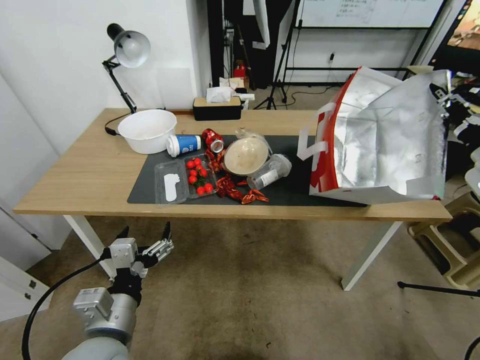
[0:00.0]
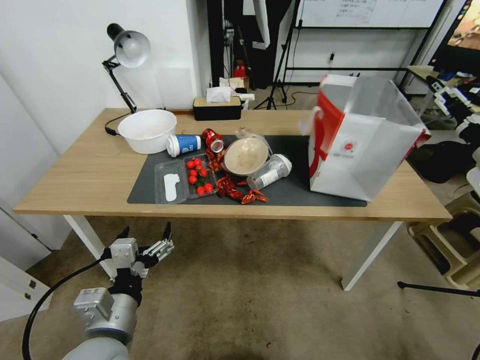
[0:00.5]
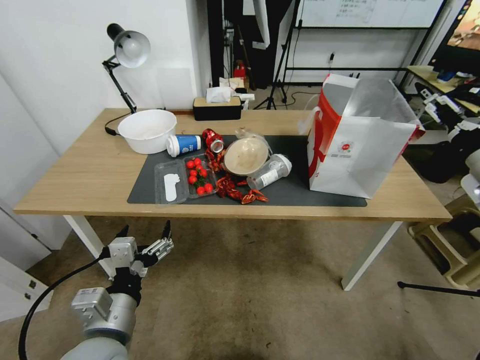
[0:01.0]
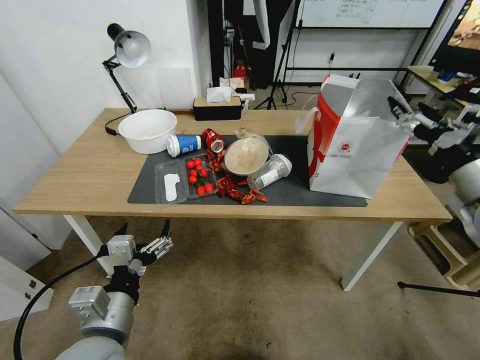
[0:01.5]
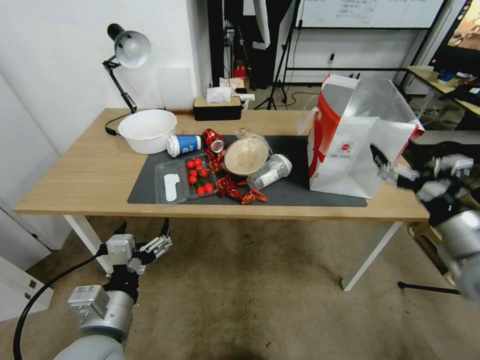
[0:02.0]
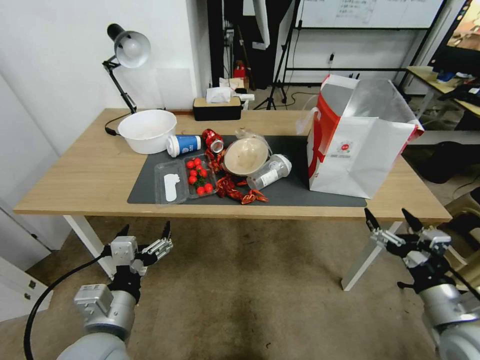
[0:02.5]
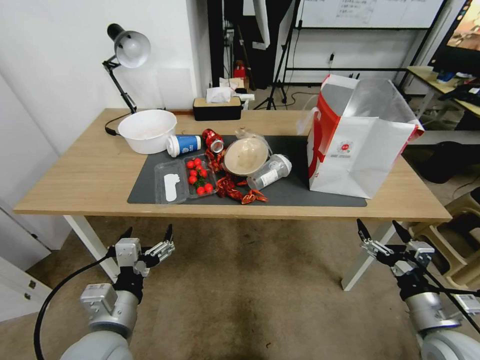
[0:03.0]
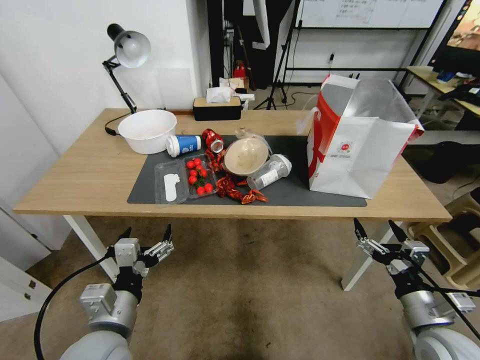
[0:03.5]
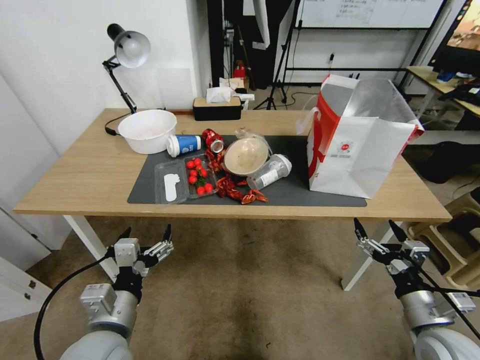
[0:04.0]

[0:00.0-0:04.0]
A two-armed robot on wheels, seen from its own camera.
Task of the whole recording: Pick up the food delivery bag from the floor and place it on the table.
0:00.0 to 0:02.0: The right gripper travels backward, downward and to the left by about 15 cm, and opens up.
0:02.0 to 0:04.0: The right gripper travels downward and backward by approximately 20 cm.

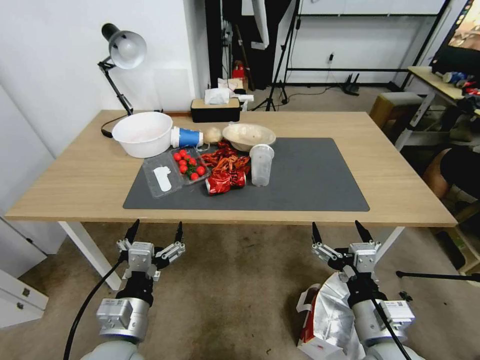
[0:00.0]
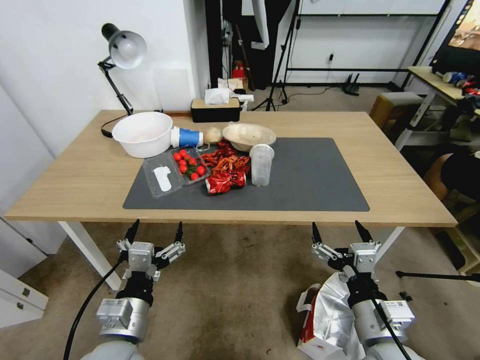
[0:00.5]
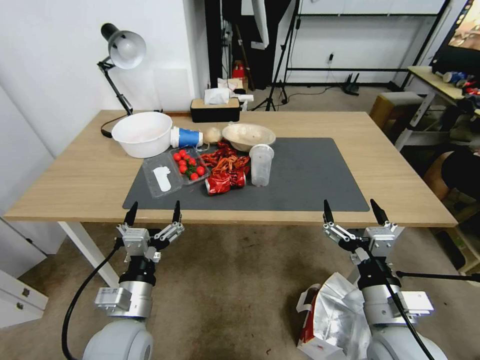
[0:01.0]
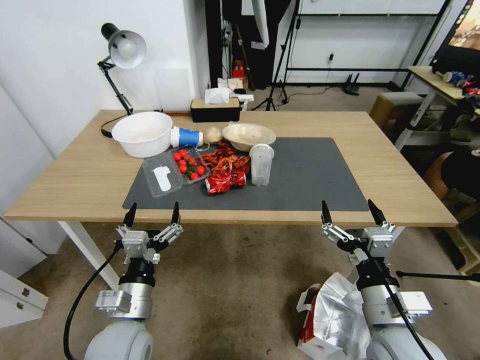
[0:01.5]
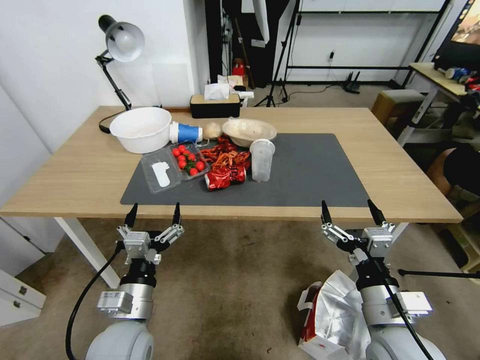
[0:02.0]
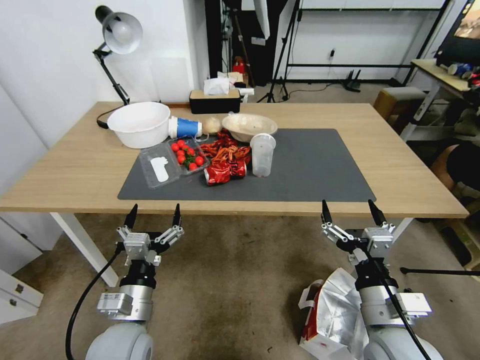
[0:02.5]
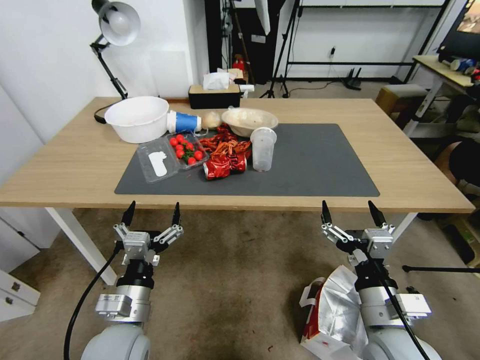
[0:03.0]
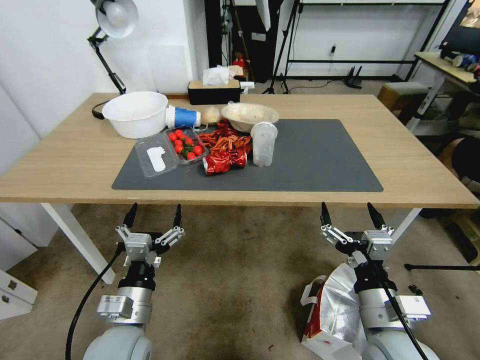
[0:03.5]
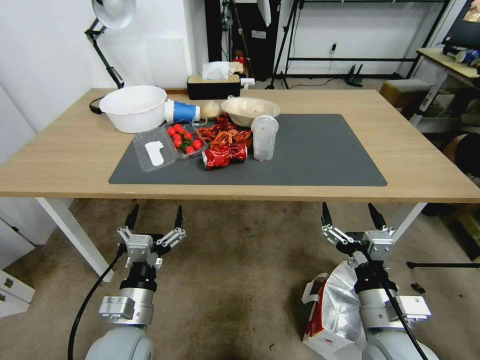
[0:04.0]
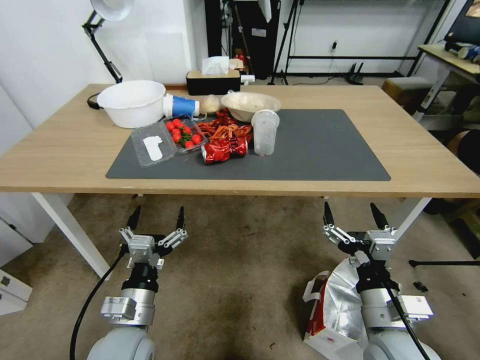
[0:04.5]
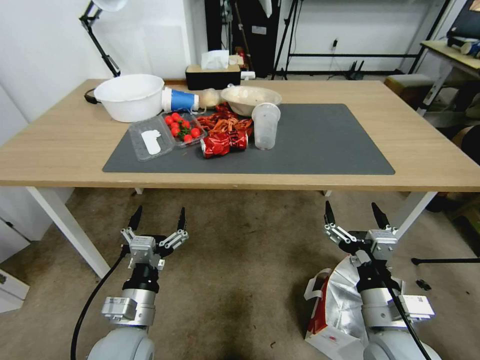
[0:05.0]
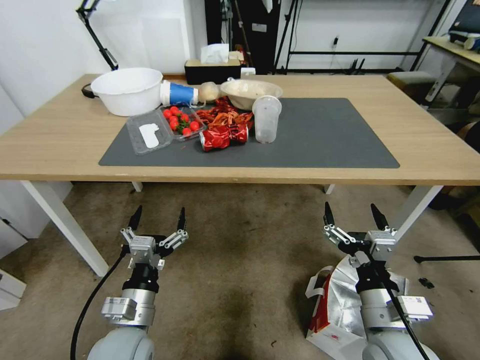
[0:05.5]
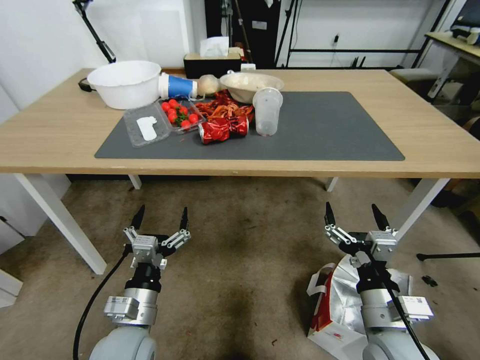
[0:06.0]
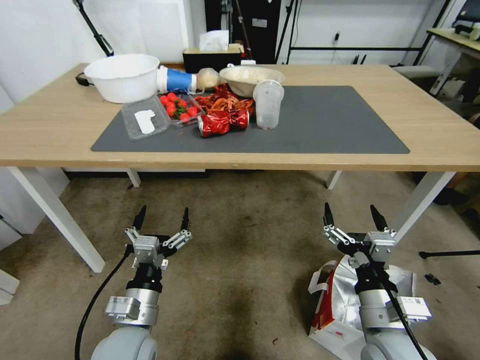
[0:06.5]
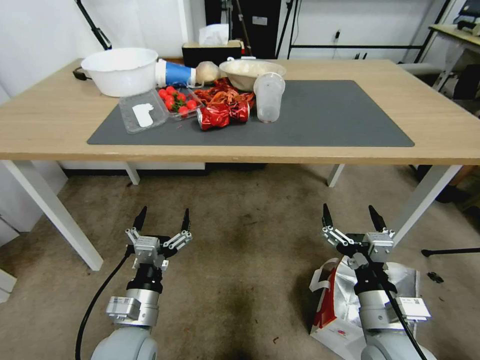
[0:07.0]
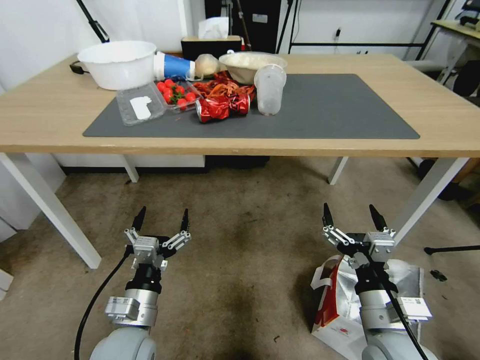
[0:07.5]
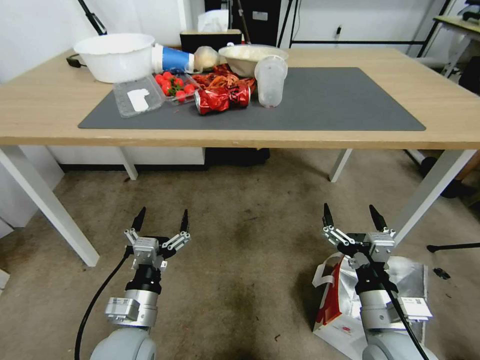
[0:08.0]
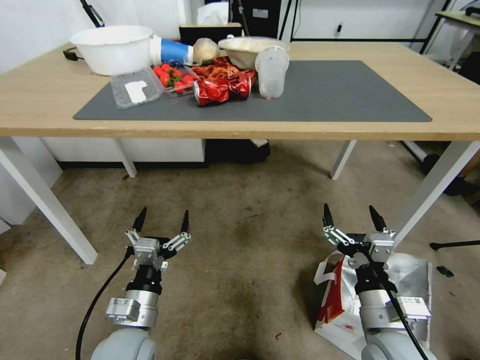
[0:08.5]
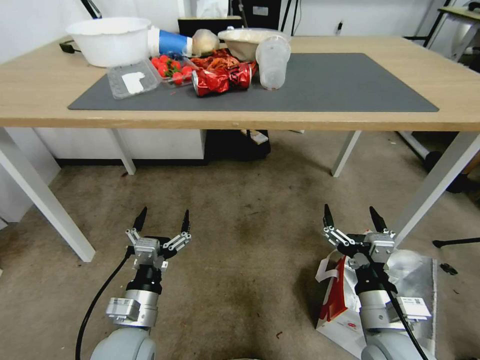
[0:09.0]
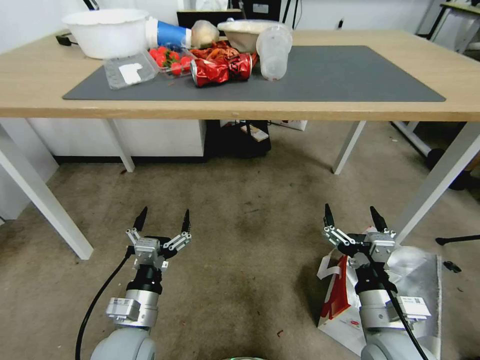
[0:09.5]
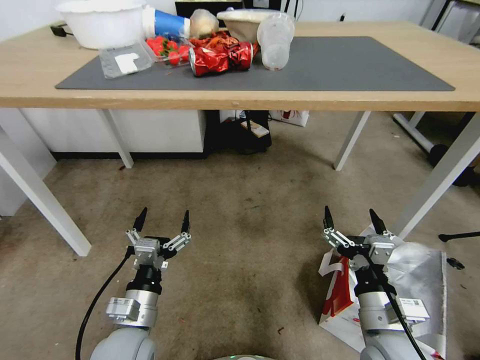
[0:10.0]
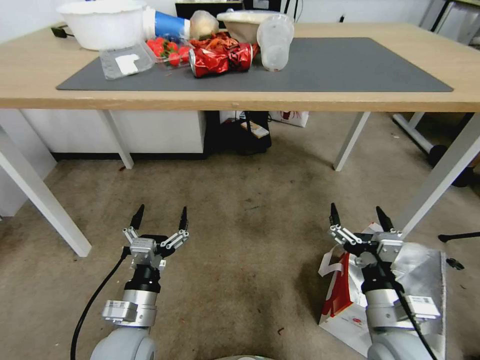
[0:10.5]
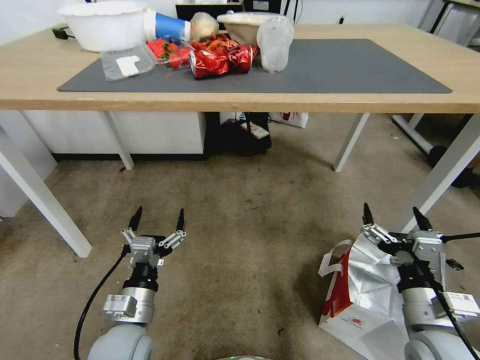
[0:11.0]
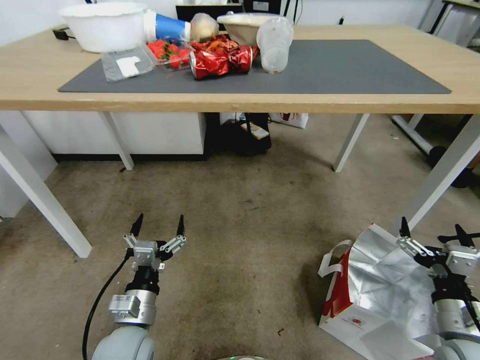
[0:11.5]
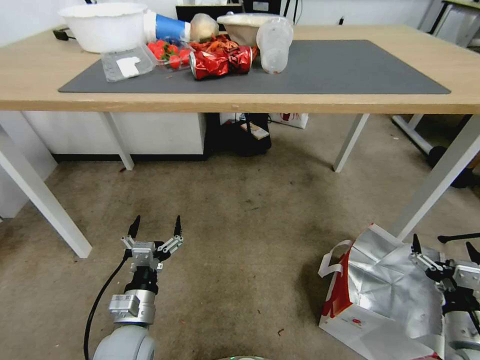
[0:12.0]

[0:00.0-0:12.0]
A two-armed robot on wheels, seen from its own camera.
Task of the whole recording: Pick up the food delivery bag from the floor and place it on the table.
0:10.0 to 0:12.0: The right gripper goes about 20 cm to the right.

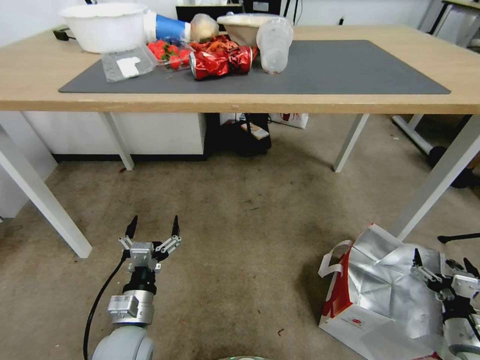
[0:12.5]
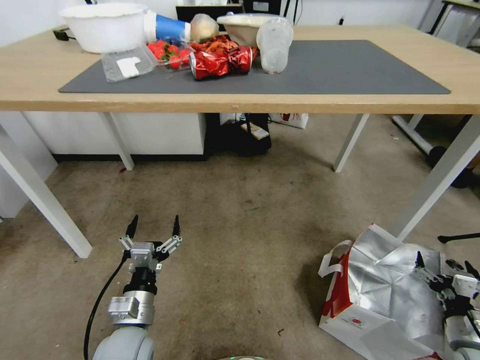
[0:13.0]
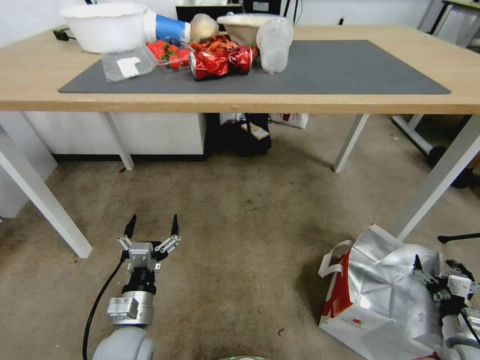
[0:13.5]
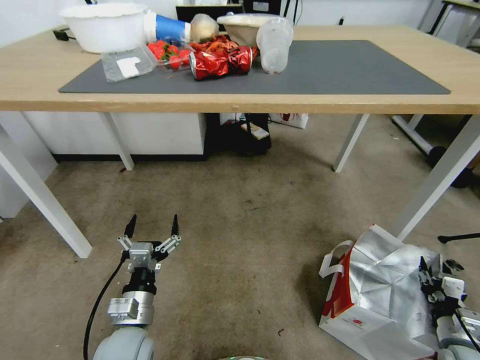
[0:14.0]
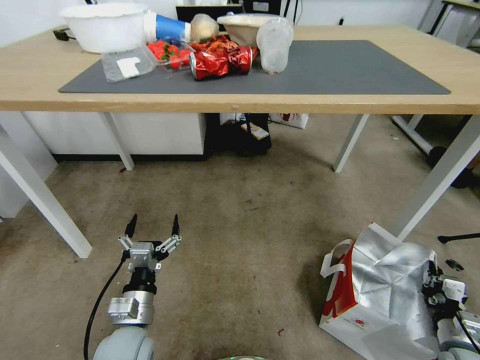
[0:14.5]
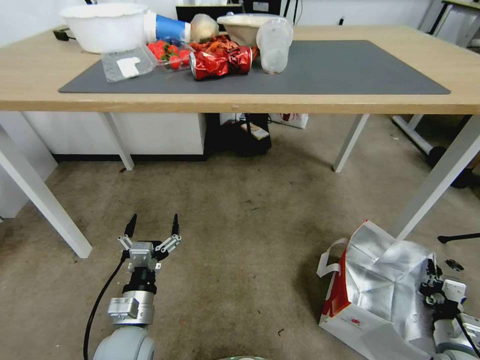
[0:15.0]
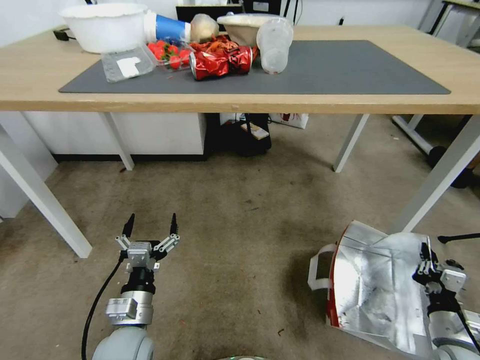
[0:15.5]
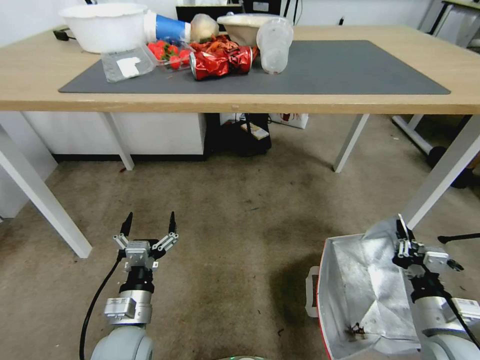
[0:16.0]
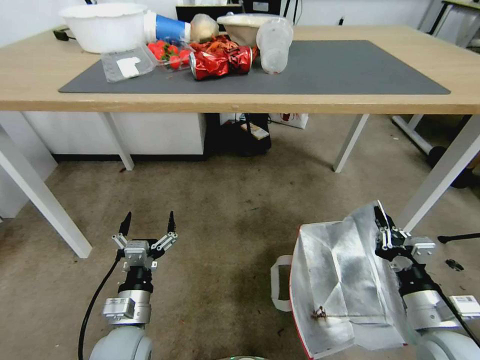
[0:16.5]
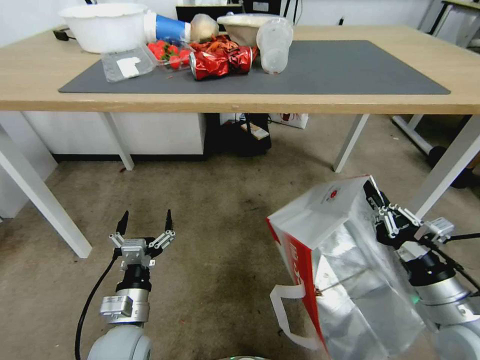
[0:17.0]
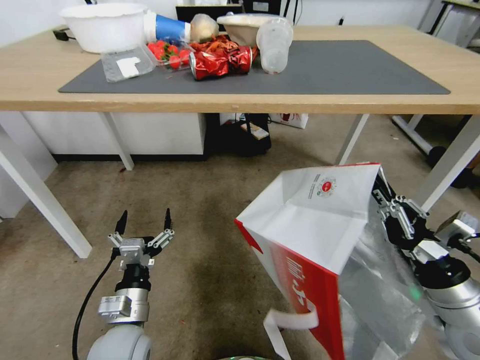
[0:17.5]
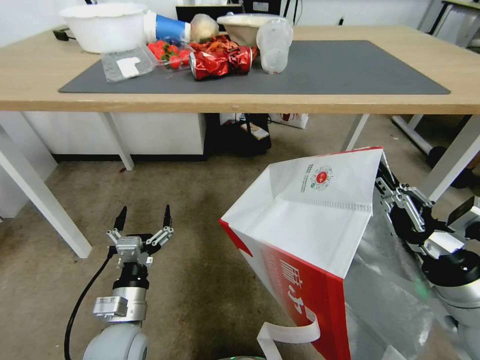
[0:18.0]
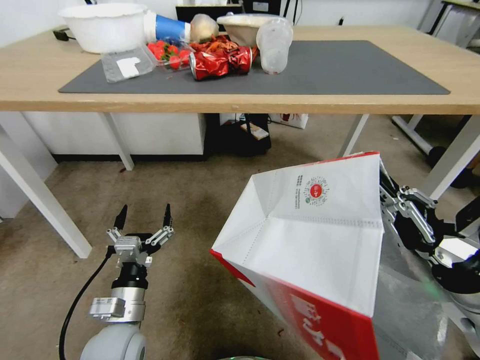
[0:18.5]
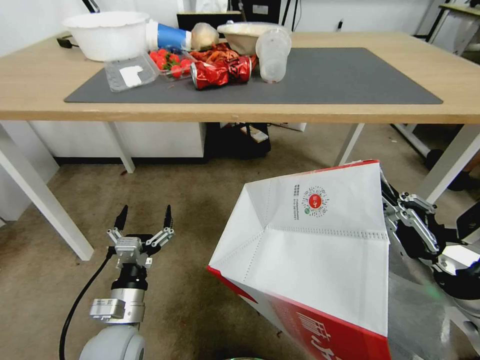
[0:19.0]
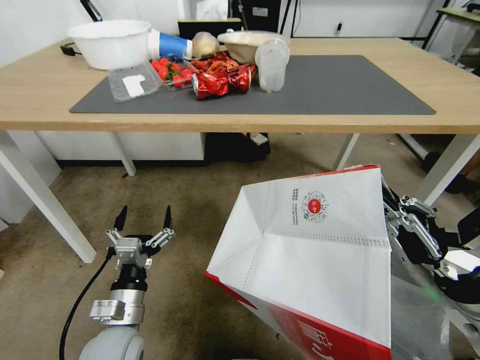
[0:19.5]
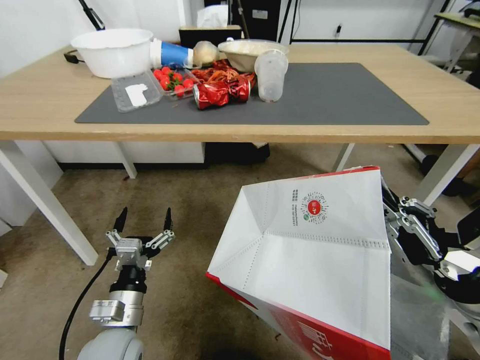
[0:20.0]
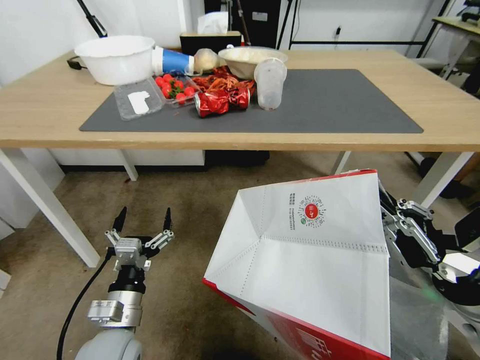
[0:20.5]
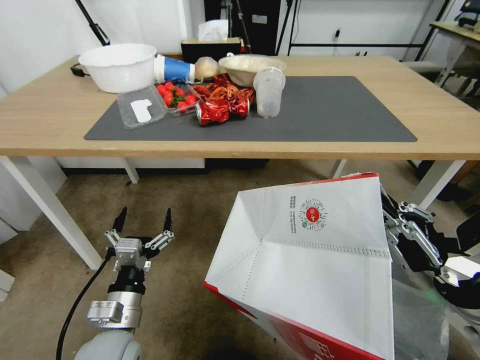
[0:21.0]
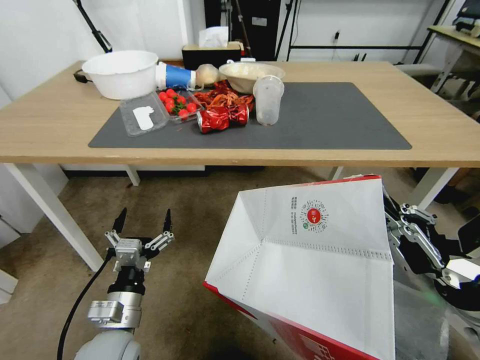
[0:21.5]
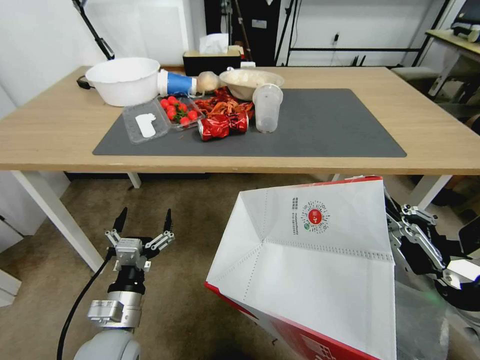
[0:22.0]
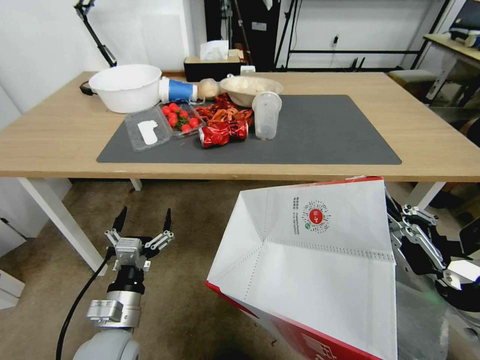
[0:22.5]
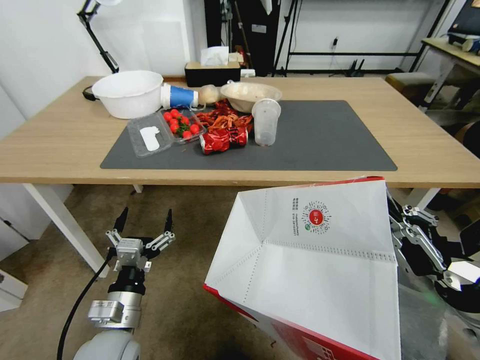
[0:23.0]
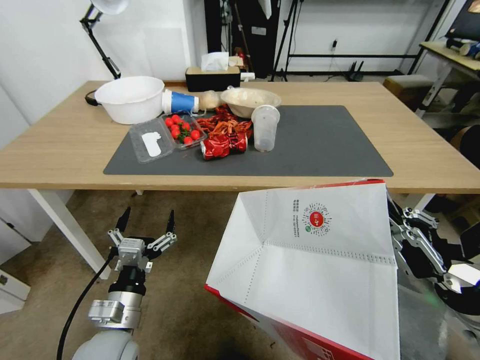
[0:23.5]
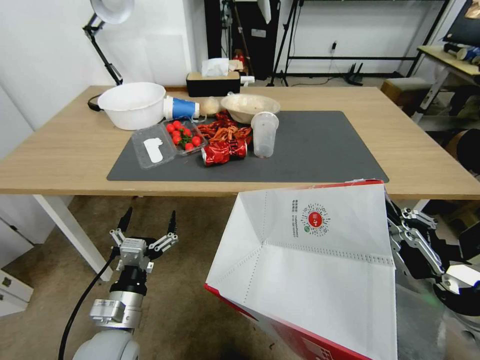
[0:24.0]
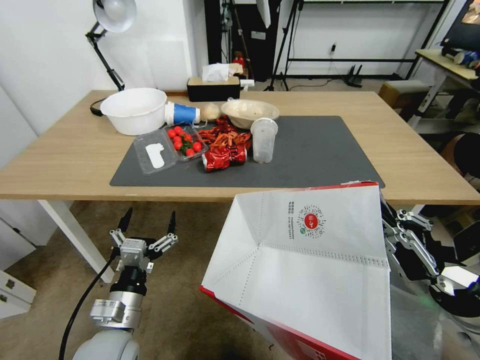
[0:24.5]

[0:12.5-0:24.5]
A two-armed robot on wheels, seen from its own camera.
Task of the whole recording: Pick up the food delivery bag from the floor and place it on the table.
0:12.5 to 0:14.5: The right gripper changes place by approximately 5 cm, and closes.
0:14.5 to 0:16.5: The right gripper travels upward and to the left by approximately 20 cm.
0:16.5 to 0:18.5: The right gripper goes approximately 15 cm upward.
